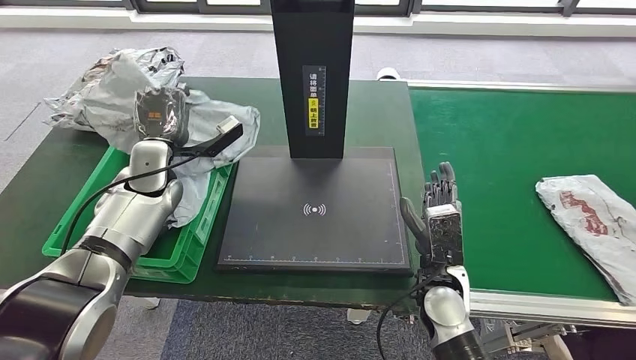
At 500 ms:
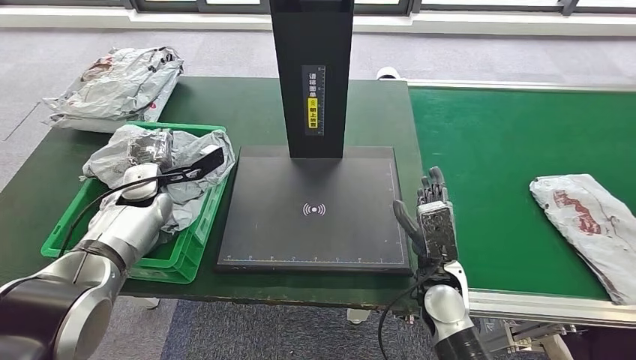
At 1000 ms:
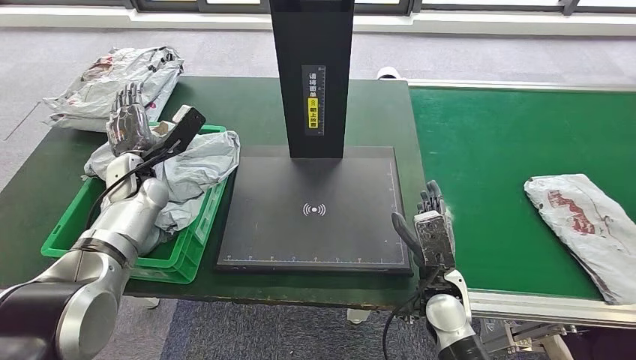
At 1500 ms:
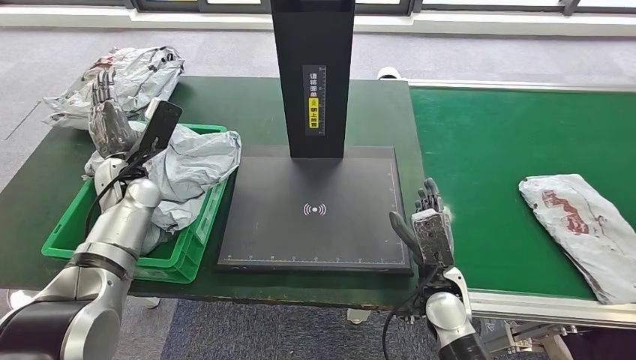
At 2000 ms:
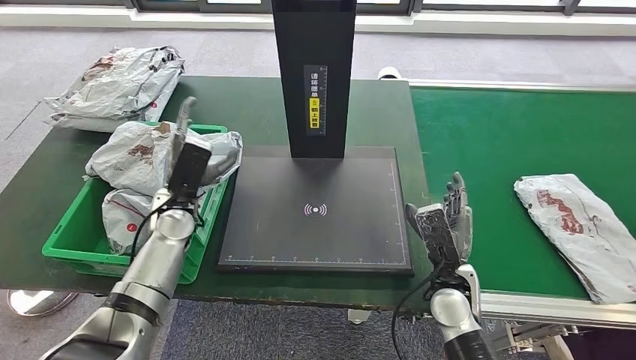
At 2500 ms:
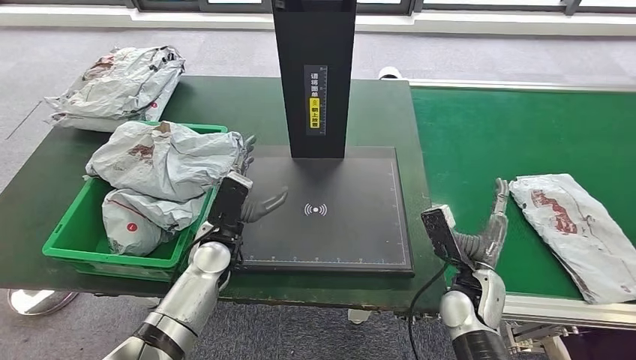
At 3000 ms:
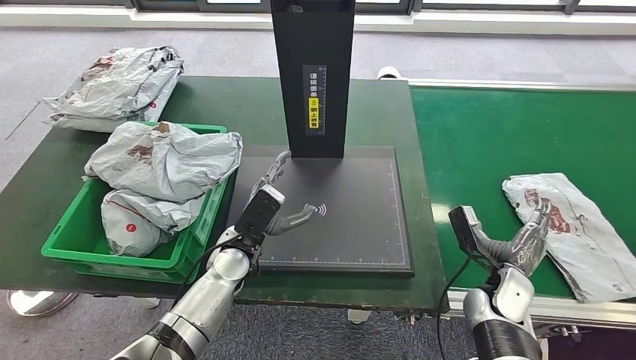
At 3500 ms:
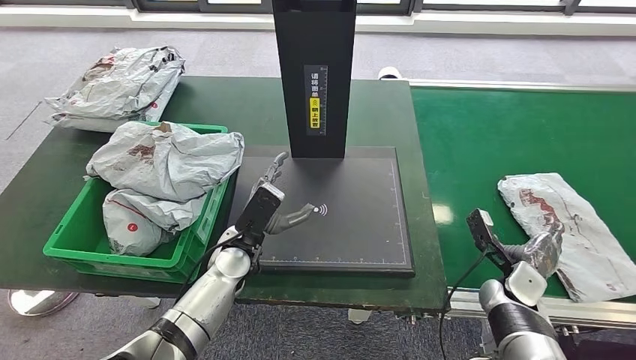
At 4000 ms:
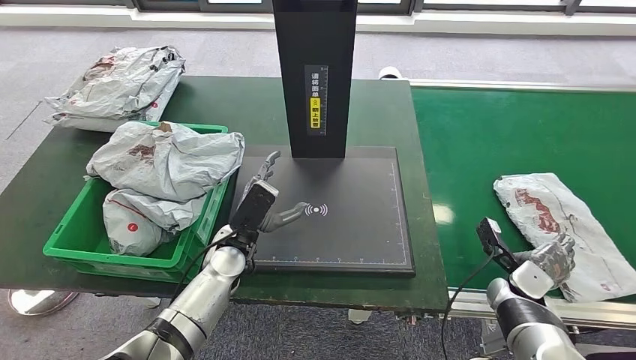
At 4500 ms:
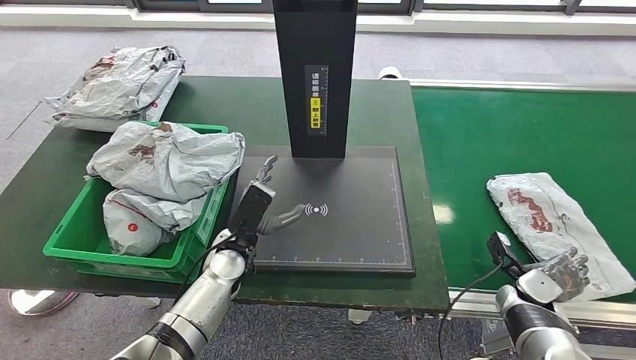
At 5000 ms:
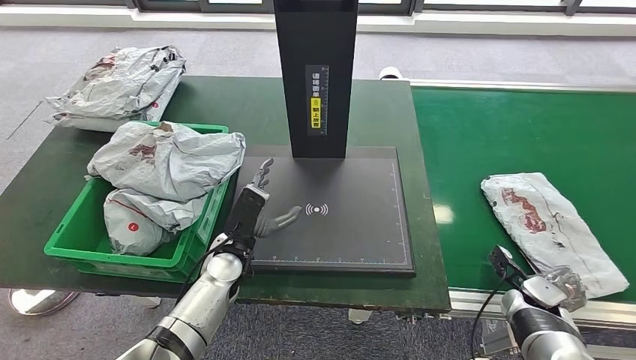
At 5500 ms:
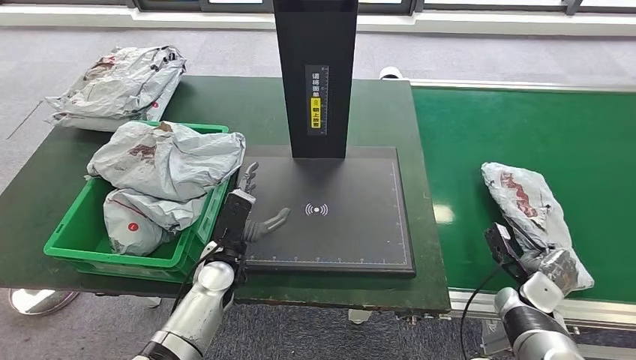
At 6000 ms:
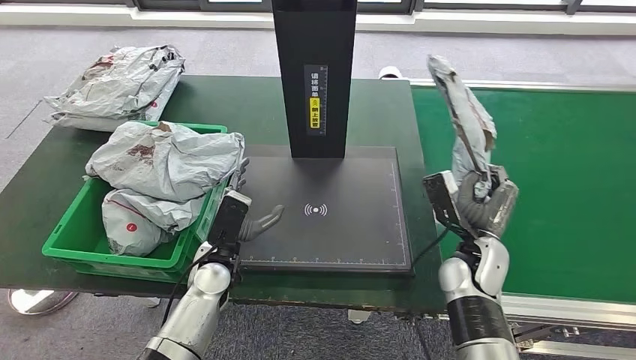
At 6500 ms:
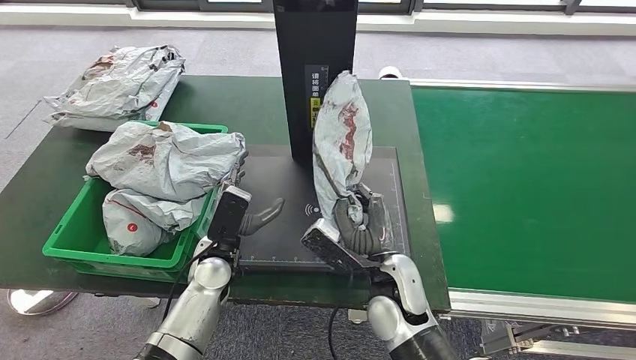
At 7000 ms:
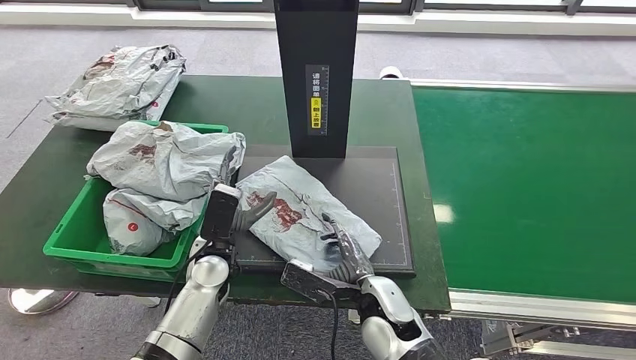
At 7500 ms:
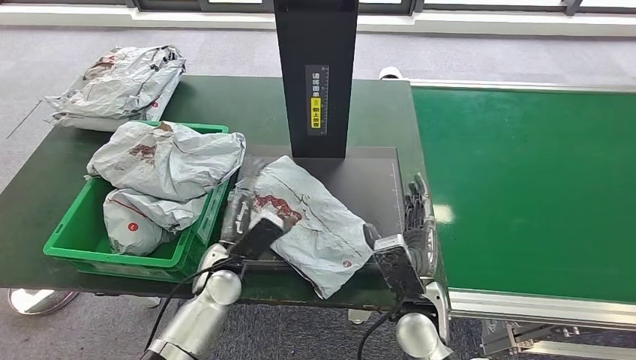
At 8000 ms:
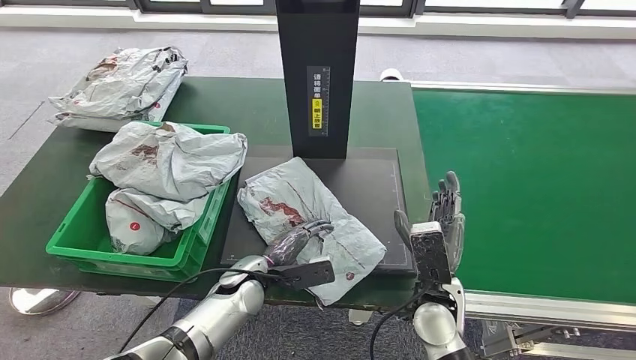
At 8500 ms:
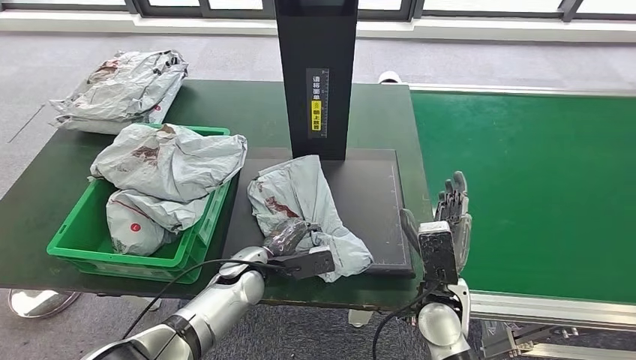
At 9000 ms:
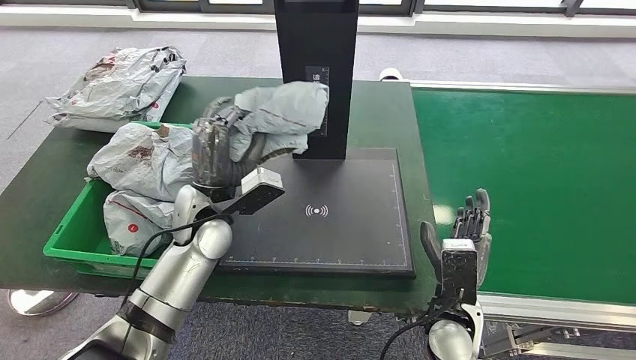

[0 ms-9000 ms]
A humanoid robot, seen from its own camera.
Step, 0 ms to 1500 ms: Place the parcel into the delivery box.
Step, 2000 ms to 6500 ms: Pick up the parcel from the conveyor belt.
Step, 7000 ms to 8500 ms: Place the parcel onto the inbound machine.
4500 ms to 7000 ms: The right hand is displaced to the left by some 30 cm.

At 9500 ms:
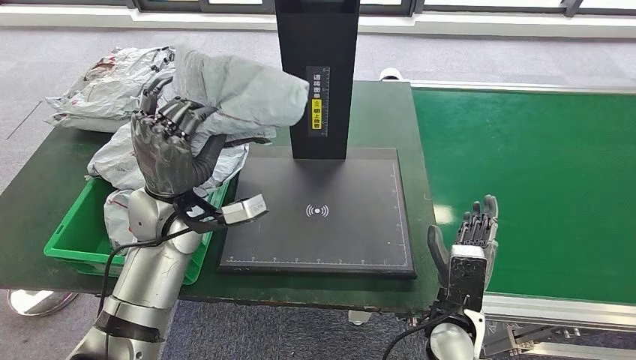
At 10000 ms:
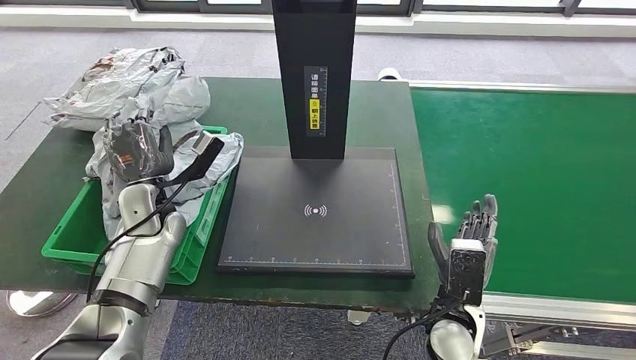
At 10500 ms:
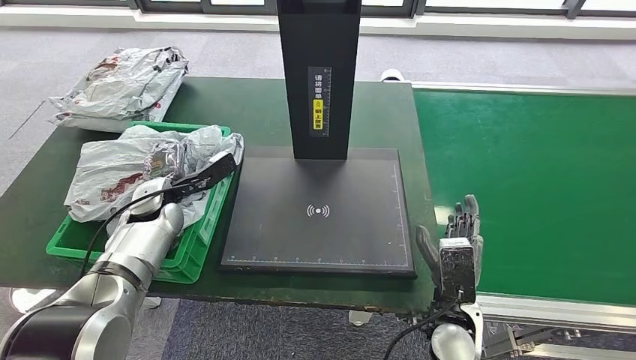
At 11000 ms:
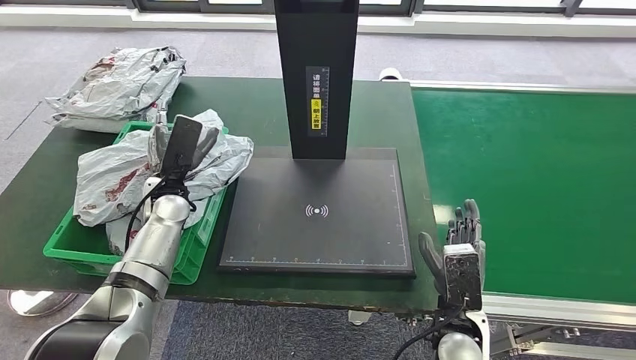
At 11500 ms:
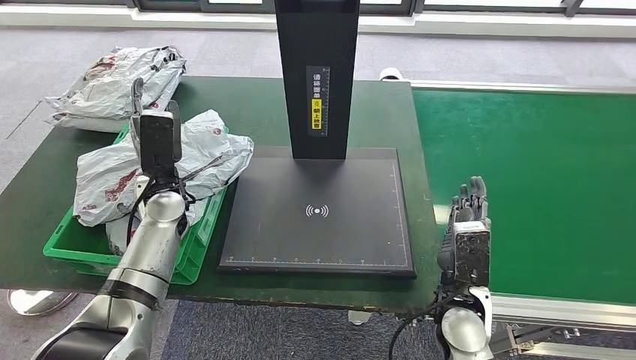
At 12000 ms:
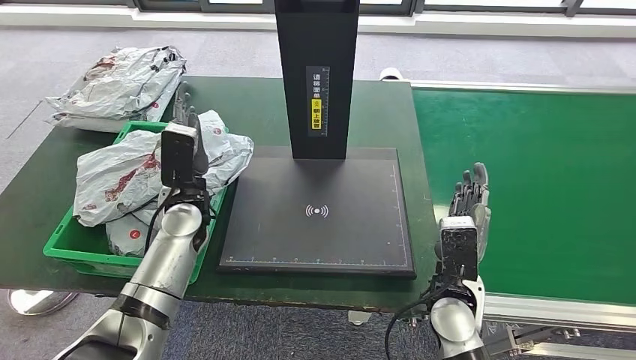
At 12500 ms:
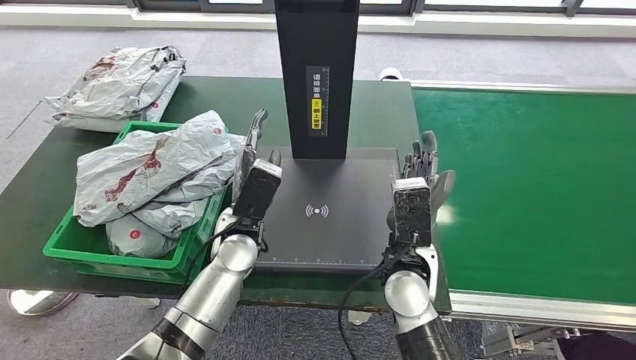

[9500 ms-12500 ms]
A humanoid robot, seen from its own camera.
Step, 10000 ms to 12500 ms: Place the parcel into the delivery box.
9500 ms to 11000 ms: The left hand is displaced downward, forward and to the left by roughly 10 cm.
11000 ms to 12500 ms: The left hand is displaced to the right and backward by approximately 15 cm. Meanwhile the right hand shifts some 15 cm to the left, upward and forward.
